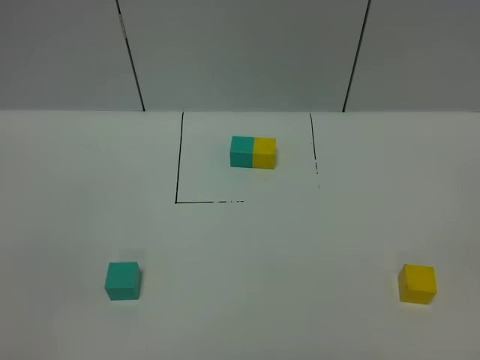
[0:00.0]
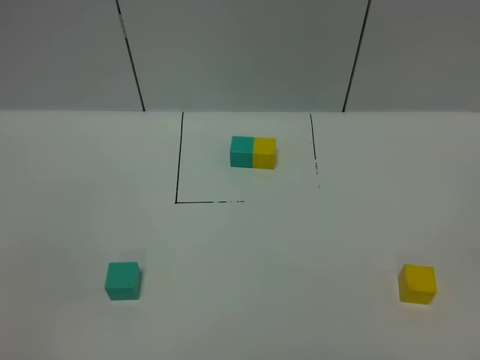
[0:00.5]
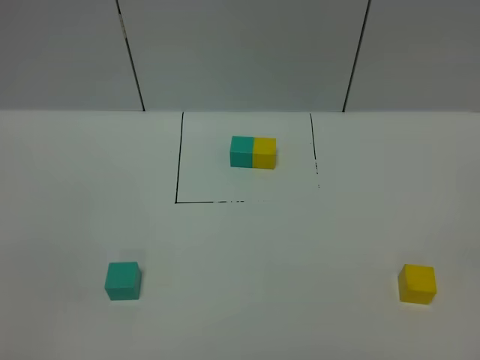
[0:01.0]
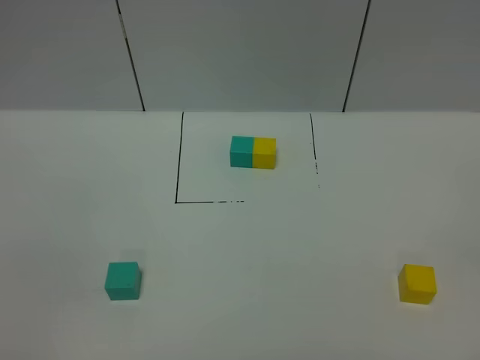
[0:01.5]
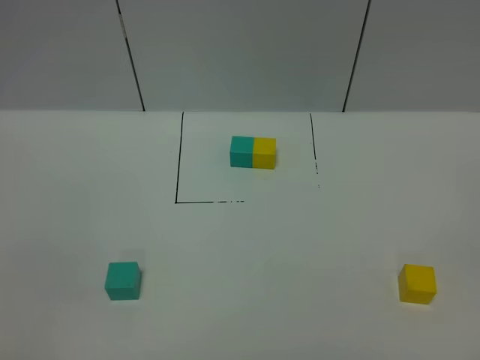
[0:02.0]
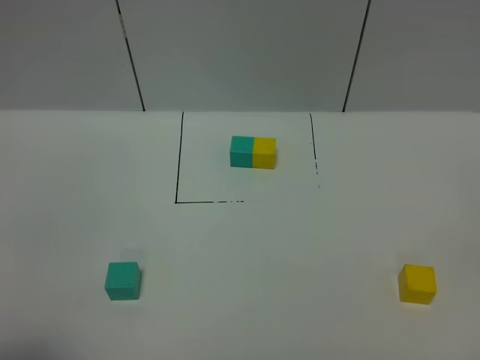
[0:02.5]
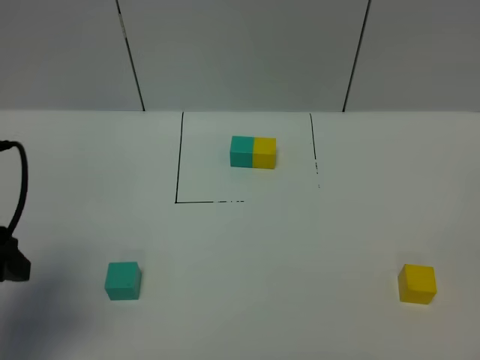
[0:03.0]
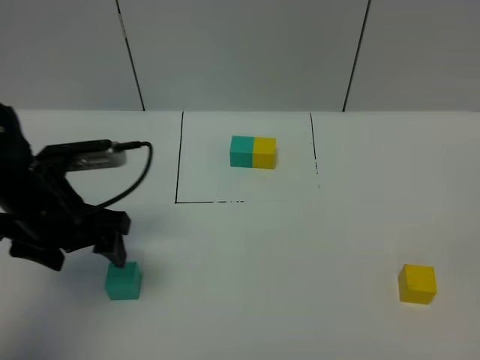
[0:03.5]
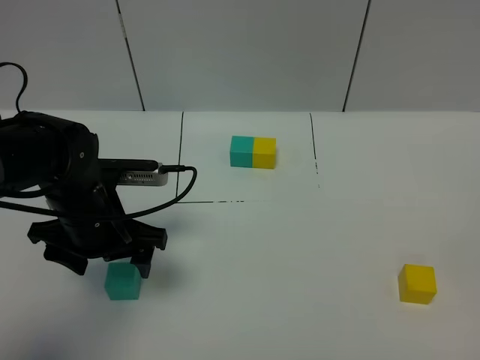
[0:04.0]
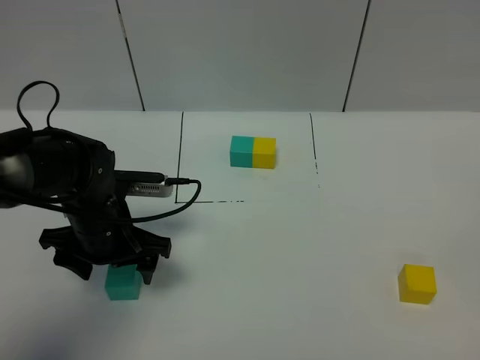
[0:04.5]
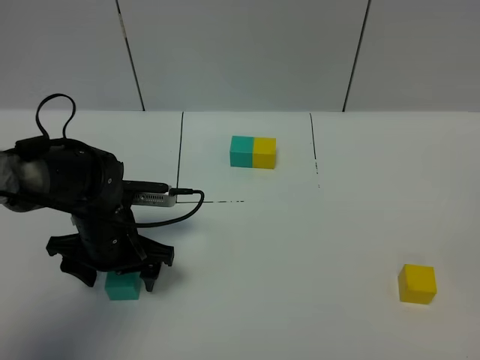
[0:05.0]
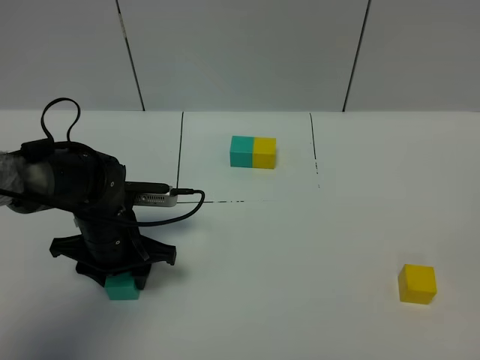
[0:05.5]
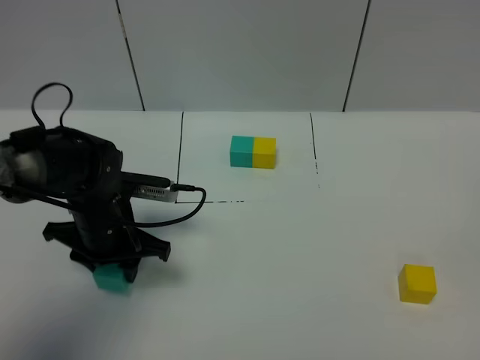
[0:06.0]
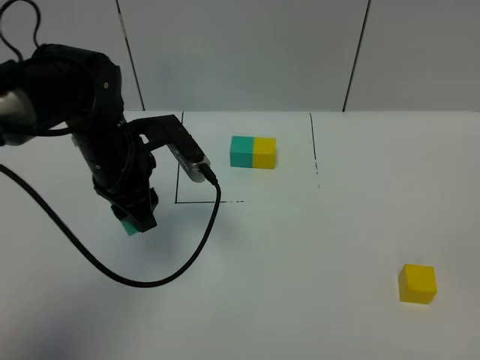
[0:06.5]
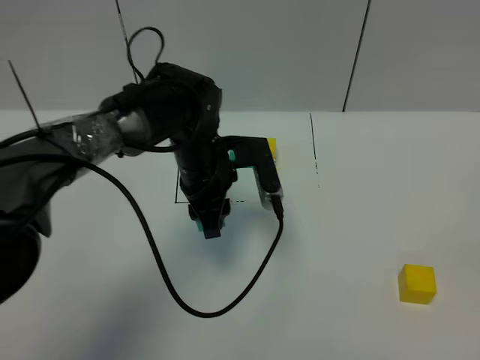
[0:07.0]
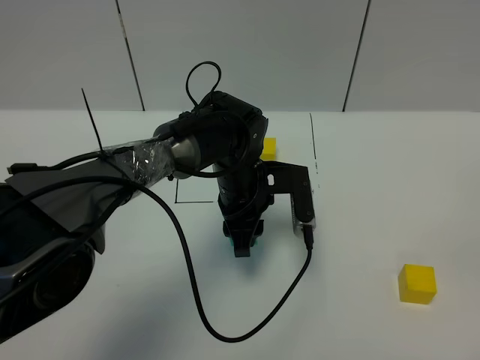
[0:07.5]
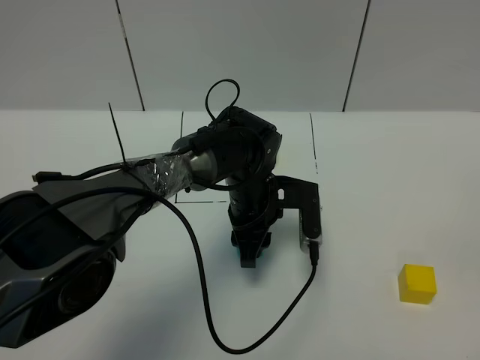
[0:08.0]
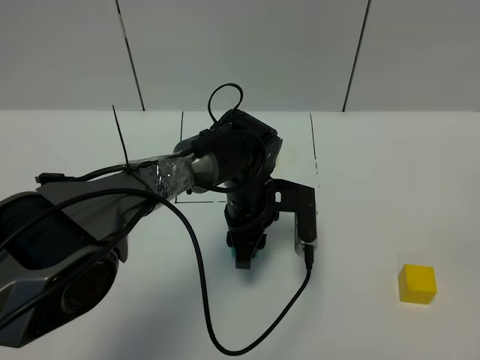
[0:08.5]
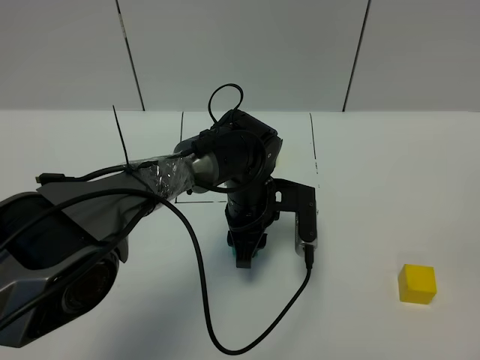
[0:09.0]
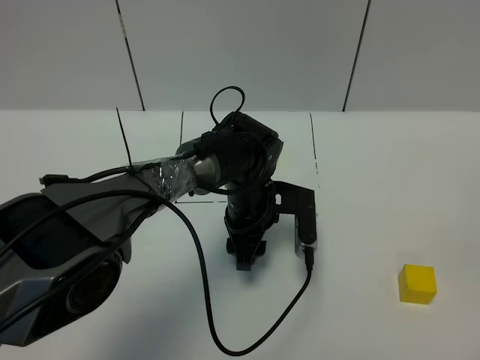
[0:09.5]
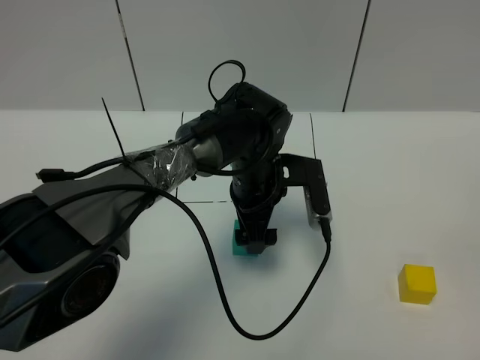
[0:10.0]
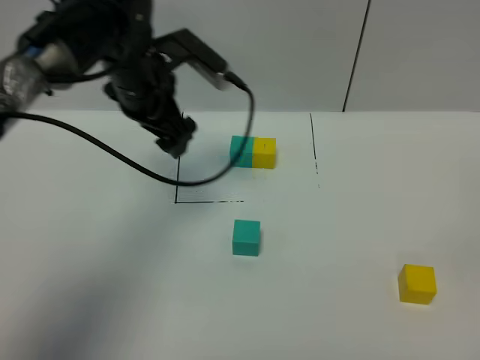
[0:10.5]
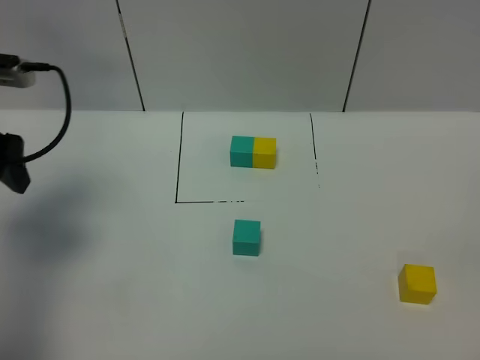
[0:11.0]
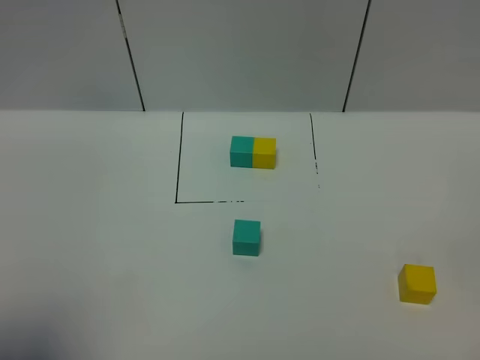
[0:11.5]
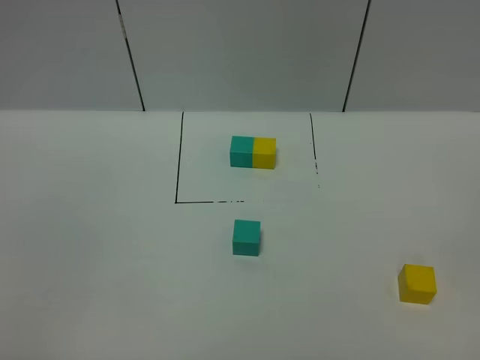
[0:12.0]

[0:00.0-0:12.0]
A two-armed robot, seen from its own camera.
Task of the whole recording: According to the building block template in front, assemble the scattered blocks together.
Step, 0:03.0 to 0:09.5: Put the green cube in the center of the table.
0:00.0 to 0:02.0: Both grippers stay put.
0:02.0 to 0:04.0: The left gripper is displaced forward by roughly 30 cm.
0:04.0 to 0:06.0: The left gripper closes.
0:06.0 to 0:08.0: The left gripper travels to the right by about 20 cm.
0:08.0 to 0:10.0: The left gripper opens up.
0:10.0 to 0:12.0: The left gripper heads backward and to the left, covering roughly 50 cm.

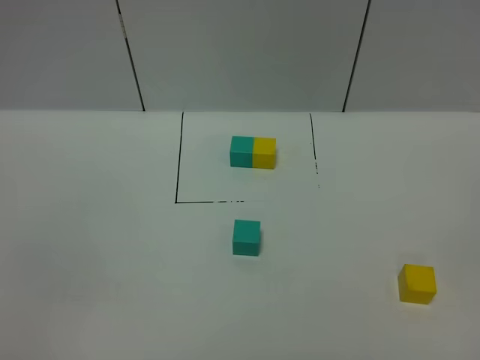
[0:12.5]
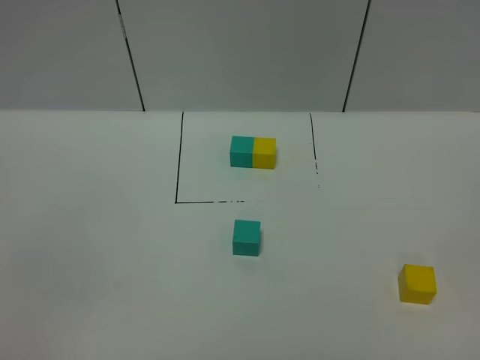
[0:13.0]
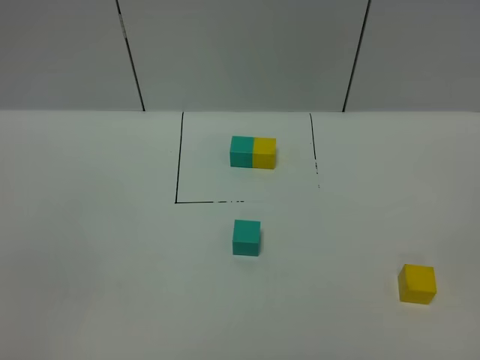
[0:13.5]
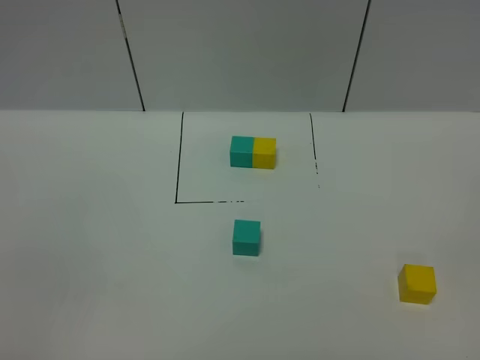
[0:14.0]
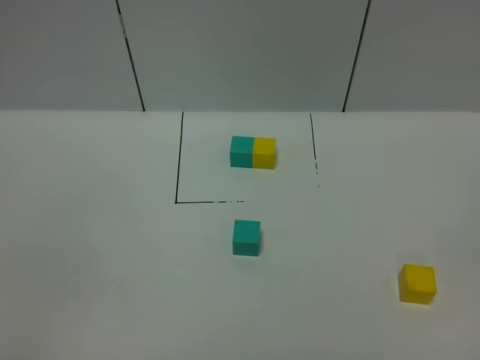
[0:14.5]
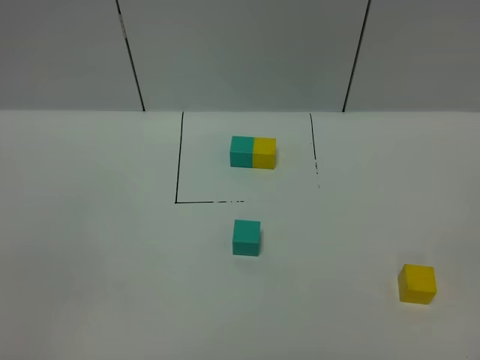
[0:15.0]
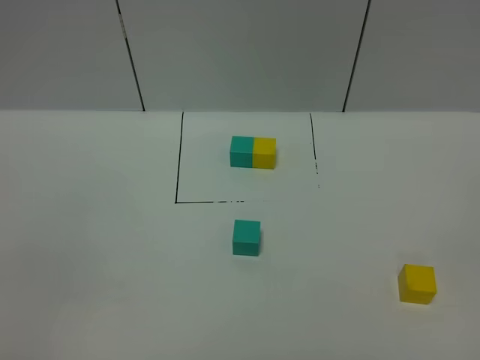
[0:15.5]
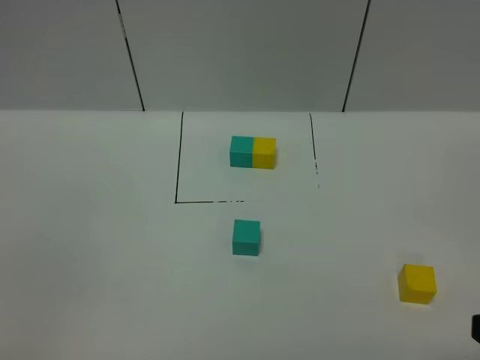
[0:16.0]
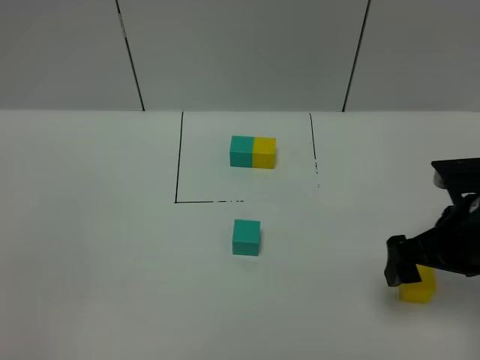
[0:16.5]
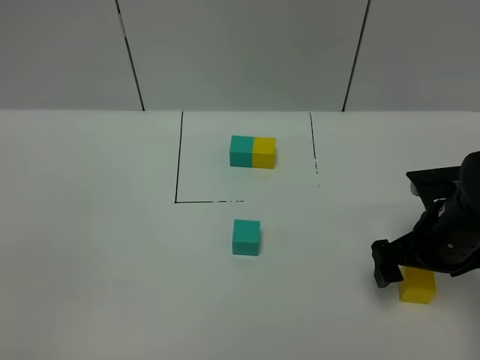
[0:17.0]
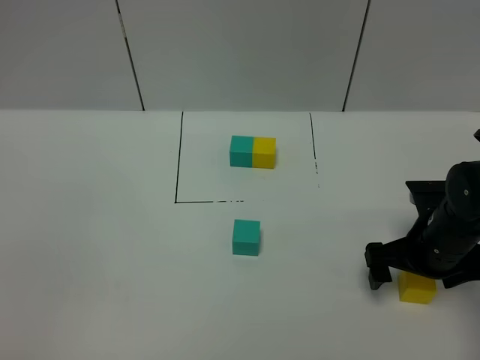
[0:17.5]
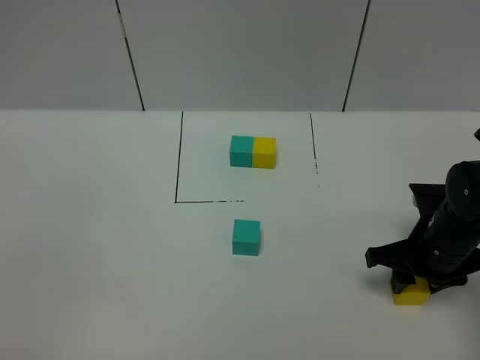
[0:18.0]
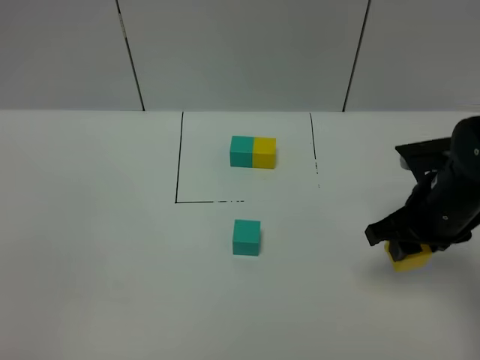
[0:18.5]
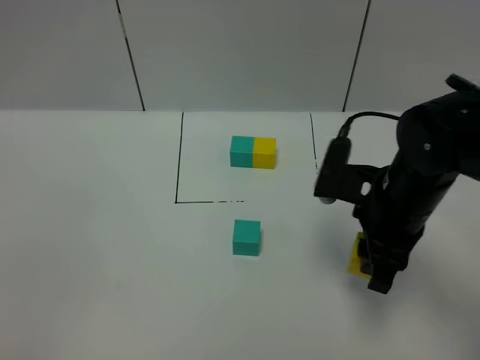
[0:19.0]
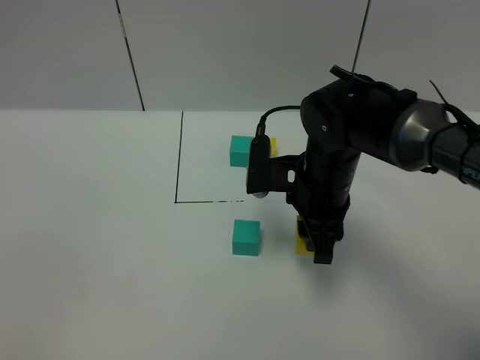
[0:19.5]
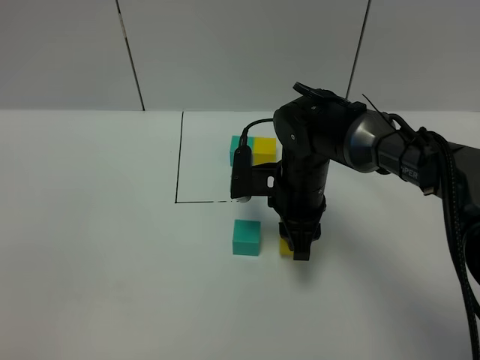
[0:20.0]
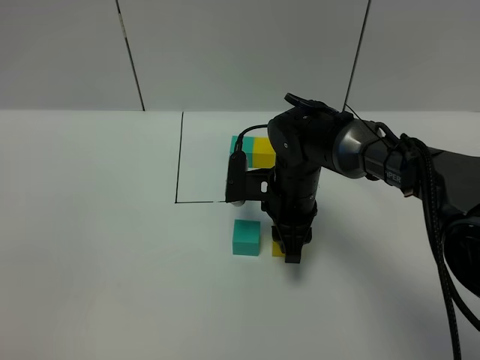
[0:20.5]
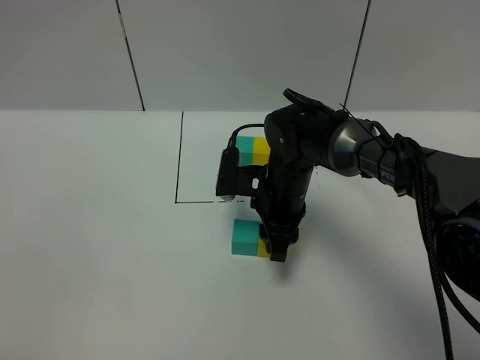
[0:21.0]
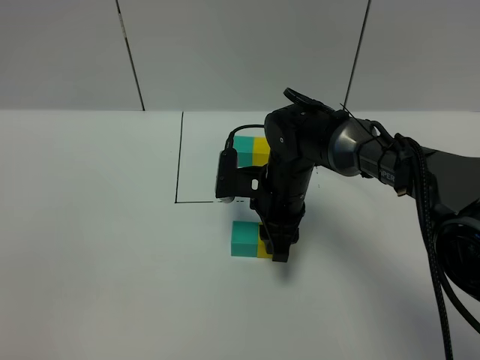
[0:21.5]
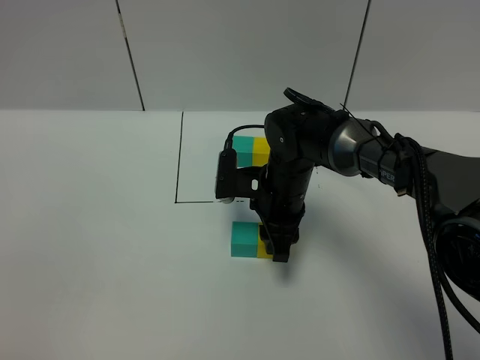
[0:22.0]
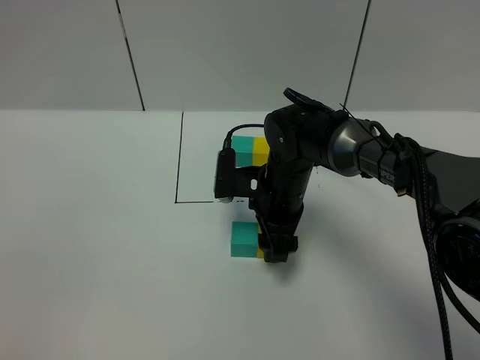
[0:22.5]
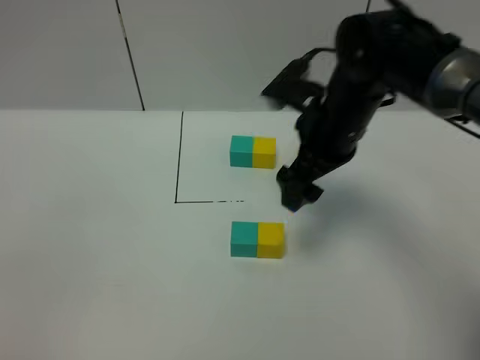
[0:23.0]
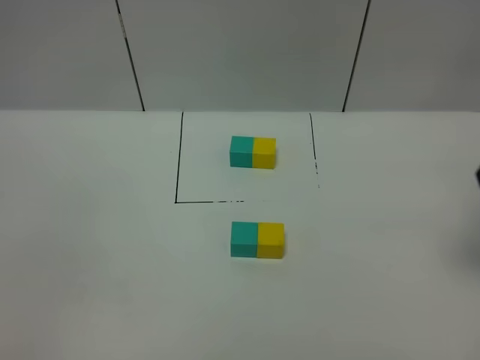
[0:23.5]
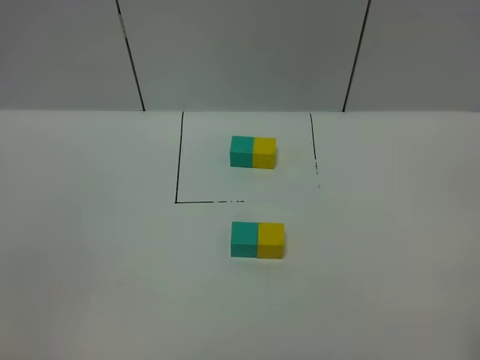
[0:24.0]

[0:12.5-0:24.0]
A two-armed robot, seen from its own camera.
Task of the whole recording: According to the building block template in front, assemble the scattered blocks together.
Step, 0:12.5 to 0:22.5: Put the yellow cube on the right of the green cube.
0:14.5 to 0:16.5: The right gripper moves forward, approximately 30 cm.
0:16.5 to 0:18.5: The right gripper closes its fingers.
0:18.5 to 0:20.0: The right gripper is displaced to the left and forward by some 15 cm.
0:20.0 to 0:22.0: The grippers stay close to where they were, moving slightly.
0:22.0 to 0:24.0: The right gripper moves backward, to the right and upward, some 40 cm, and opens up.

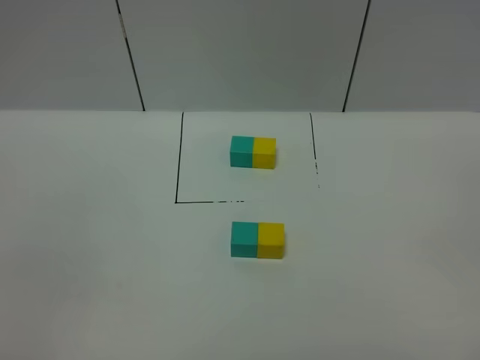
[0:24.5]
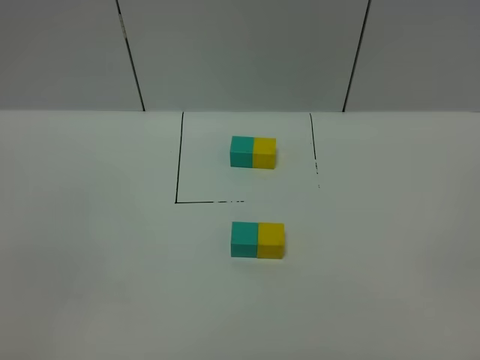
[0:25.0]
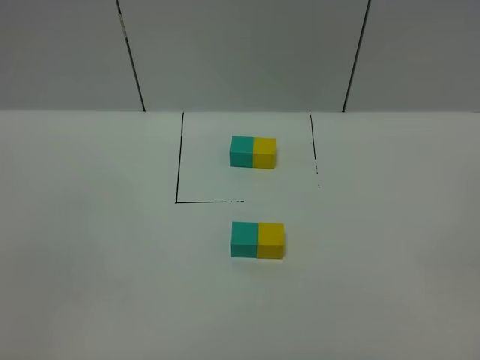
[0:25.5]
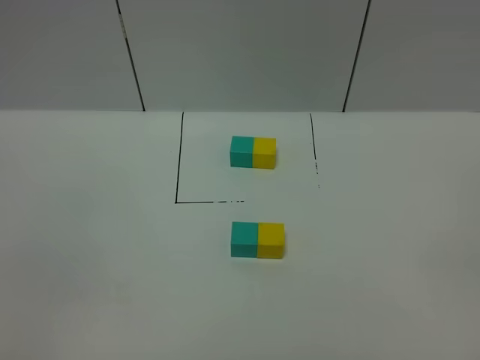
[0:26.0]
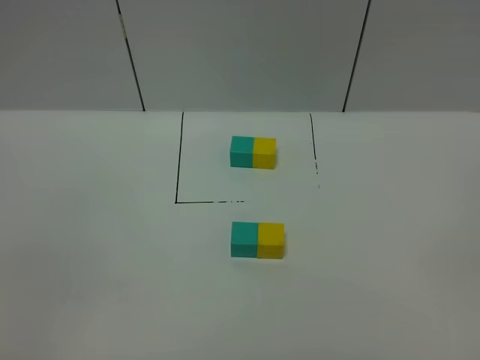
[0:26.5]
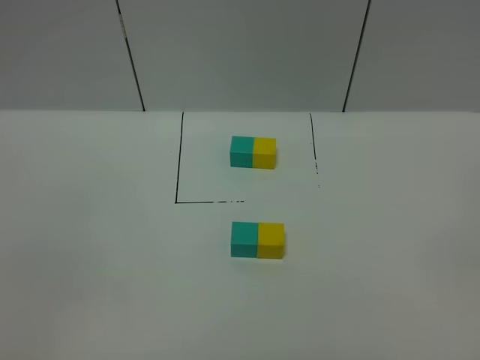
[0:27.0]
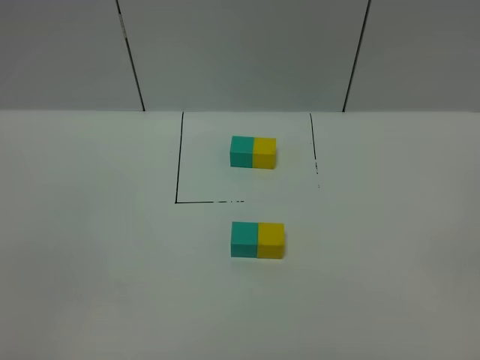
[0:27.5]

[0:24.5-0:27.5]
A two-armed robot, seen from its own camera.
Task of the whole recording: According to the building block template in front, assemble the scattered blocks together.
0:26.0 to 0:27.5: The two grippers keep their place.
